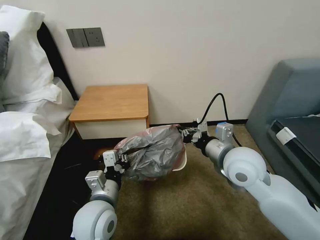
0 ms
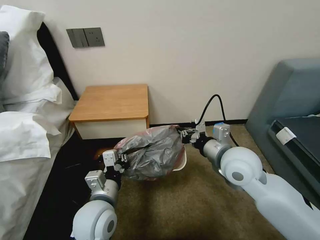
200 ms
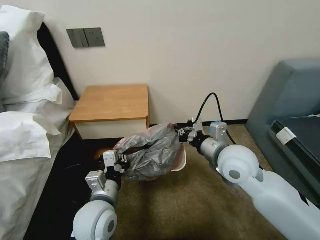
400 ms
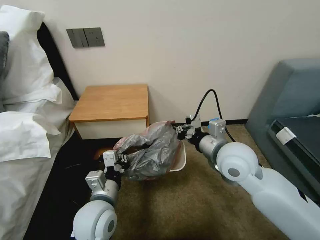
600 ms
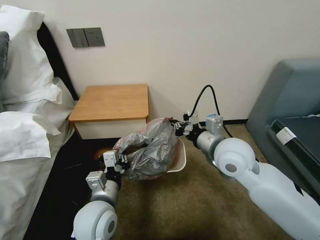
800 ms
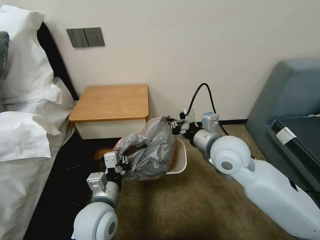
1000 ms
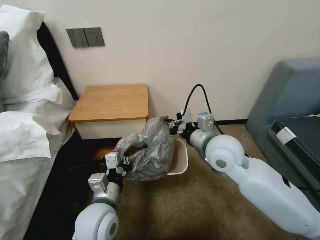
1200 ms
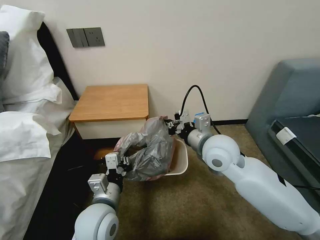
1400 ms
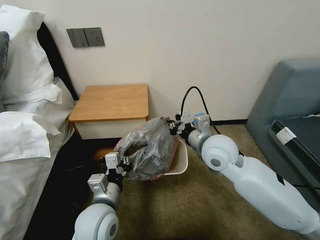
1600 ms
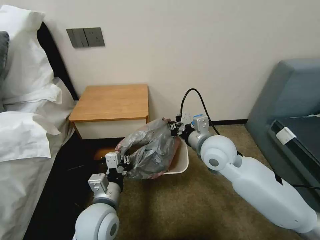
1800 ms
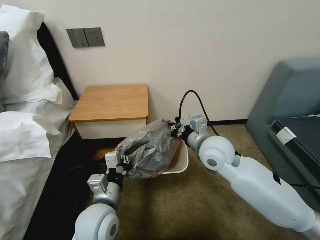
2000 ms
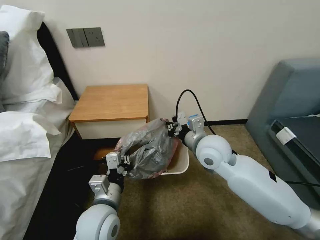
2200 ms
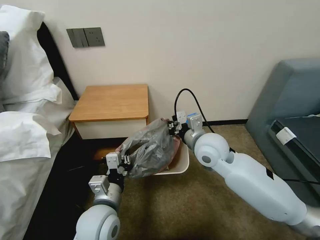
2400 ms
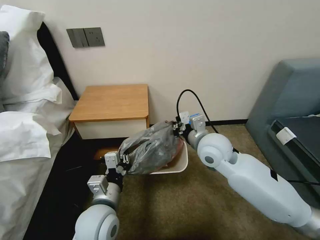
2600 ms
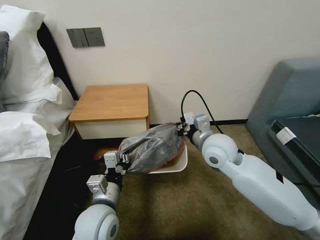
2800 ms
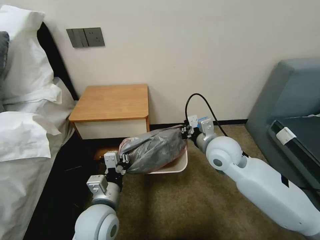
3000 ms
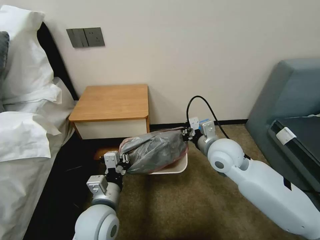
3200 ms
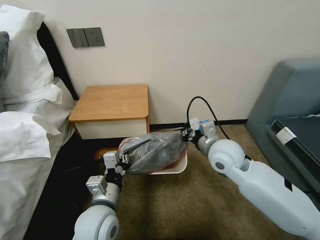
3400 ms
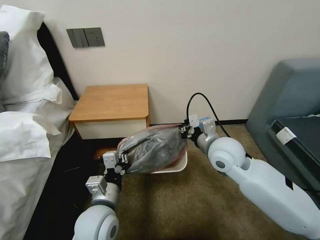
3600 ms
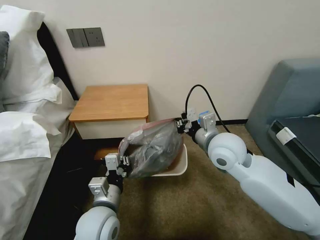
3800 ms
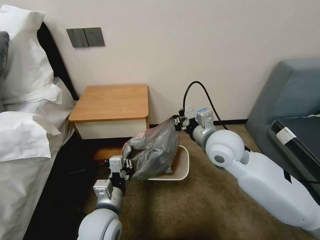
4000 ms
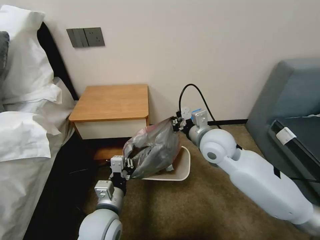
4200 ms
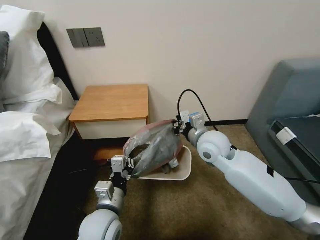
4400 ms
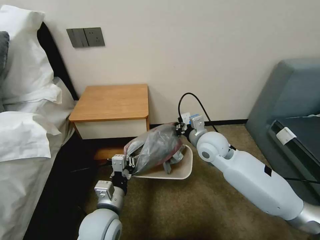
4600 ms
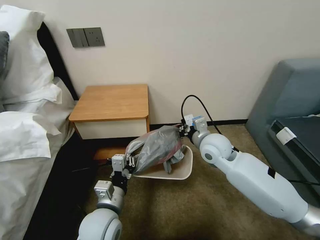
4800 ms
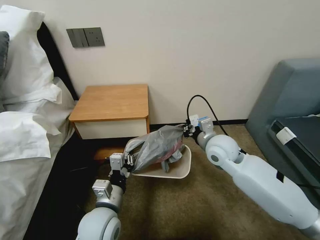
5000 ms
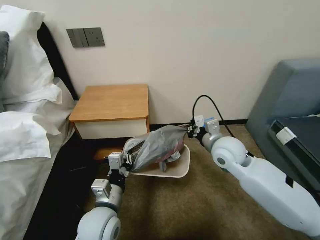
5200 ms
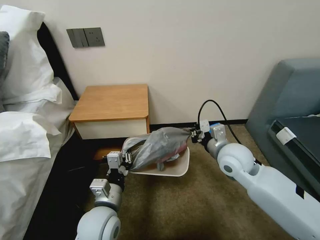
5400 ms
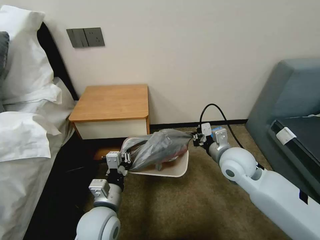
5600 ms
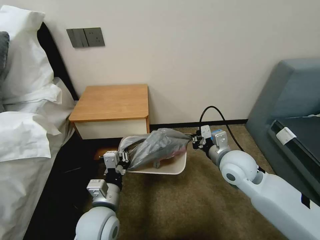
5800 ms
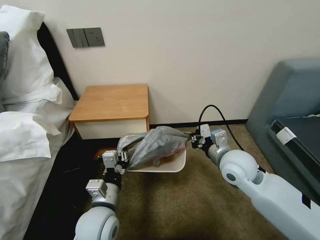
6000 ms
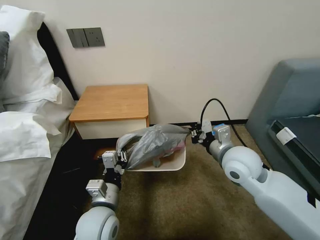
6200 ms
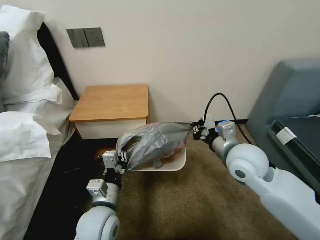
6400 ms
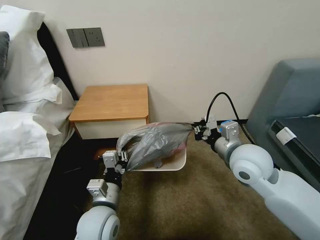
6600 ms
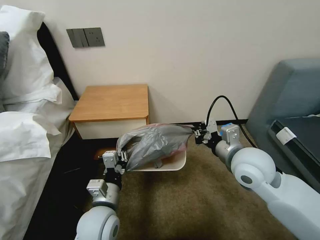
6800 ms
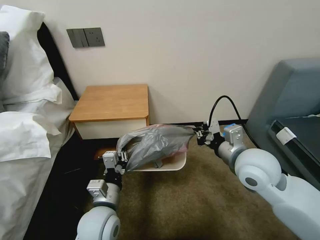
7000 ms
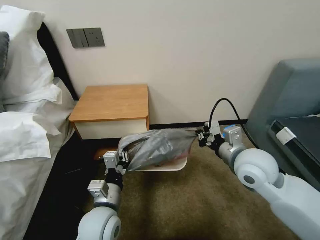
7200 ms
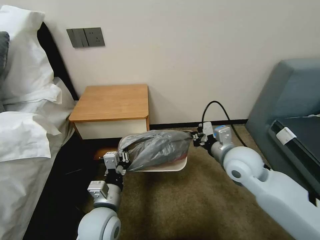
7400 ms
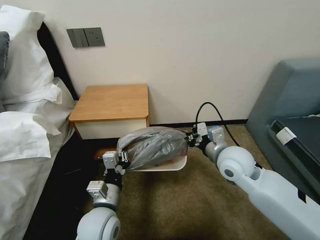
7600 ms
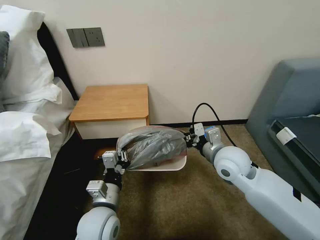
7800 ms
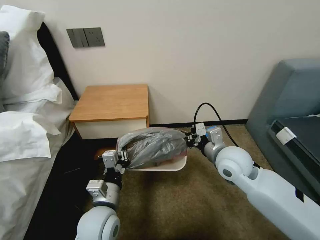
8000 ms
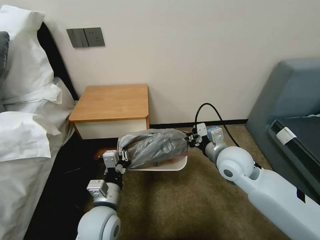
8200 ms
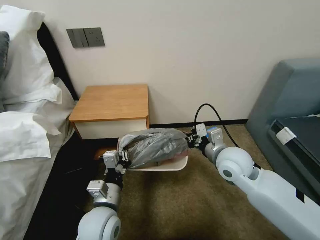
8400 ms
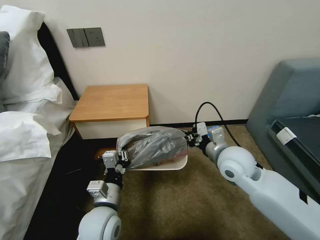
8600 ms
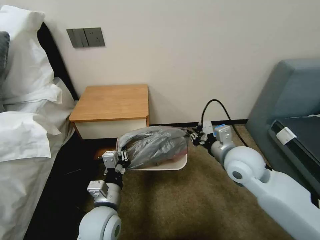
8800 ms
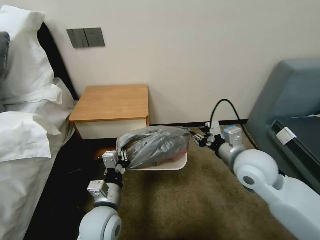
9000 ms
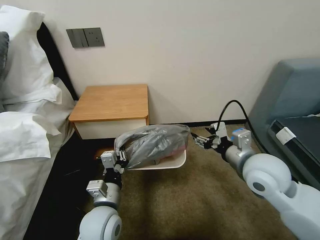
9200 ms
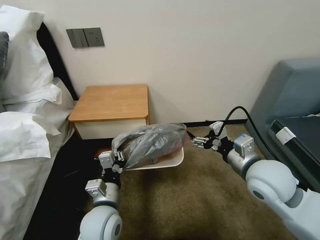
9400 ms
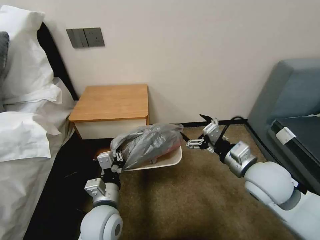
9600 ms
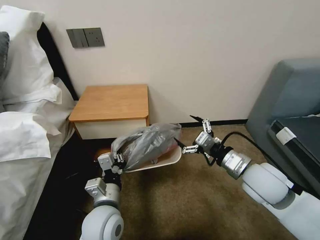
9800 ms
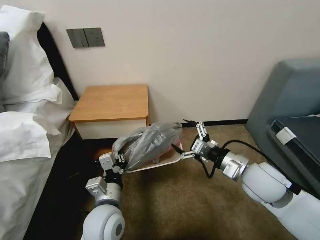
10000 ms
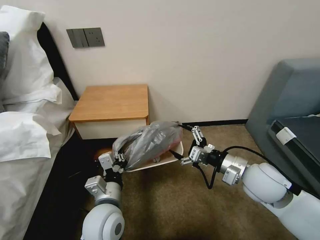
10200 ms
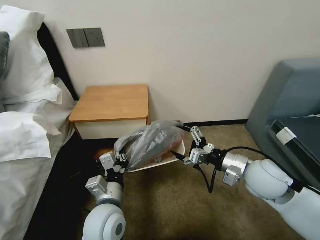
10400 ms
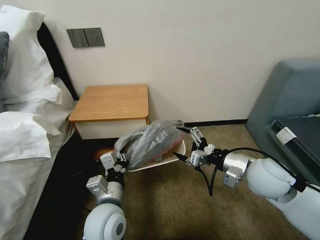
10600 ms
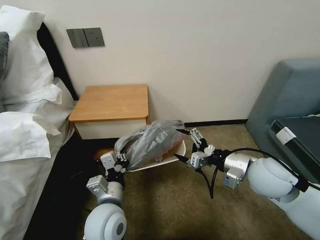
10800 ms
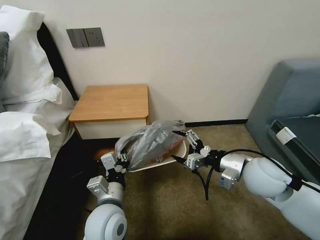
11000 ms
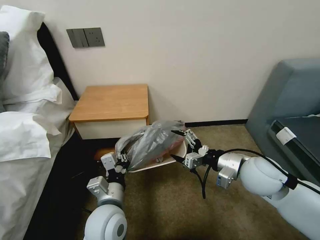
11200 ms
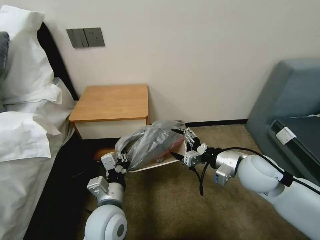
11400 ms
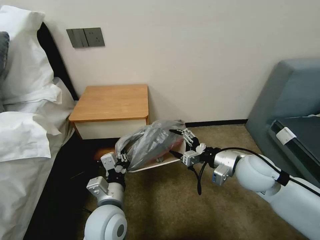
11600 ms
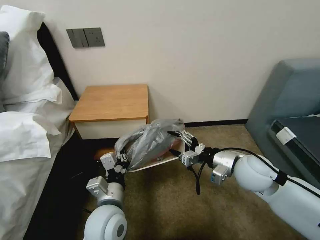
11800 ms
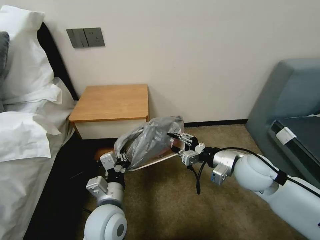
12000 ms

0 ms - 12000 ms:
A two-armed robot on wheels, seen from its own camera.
Task of the whole recording: Pick up the garbage bag from the table and place it over the trash can.
0 ms - 1600 ms: The right gripper changes place by roughly 5 cm.
1600 ms - 4400 ms: The grippers stay close to where they were, moving slightly.
4400 ms - 6000 ms: The right gripper goes roughly 10 cm to the right and backward.
7600 ms - 9000 ms: The right gripper ends up some 5 cm from where it was, and opens its fingers.
9000 ms - 10400 ms: The right gripper opens its fingers.
10400 ms - 12000 ms: The right gripper closes.

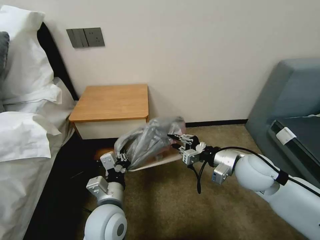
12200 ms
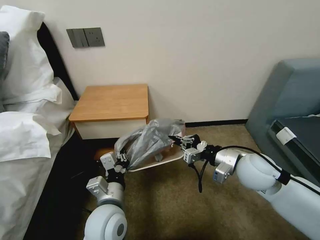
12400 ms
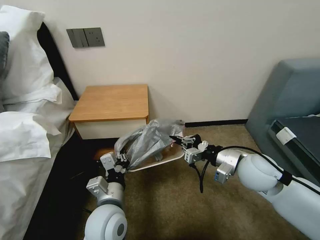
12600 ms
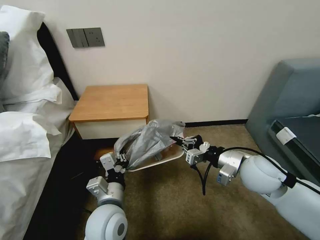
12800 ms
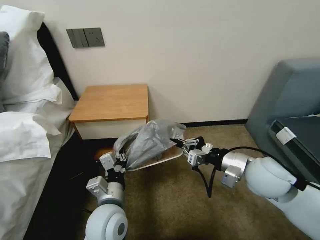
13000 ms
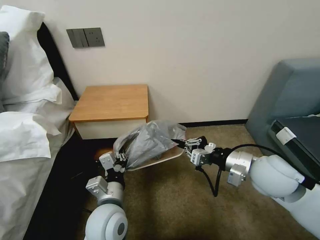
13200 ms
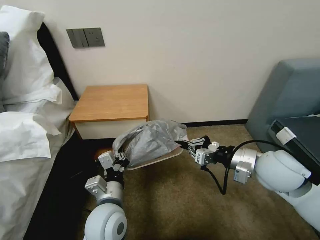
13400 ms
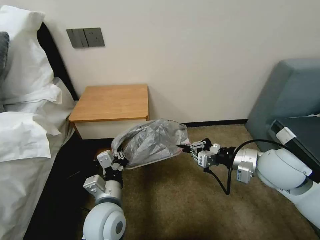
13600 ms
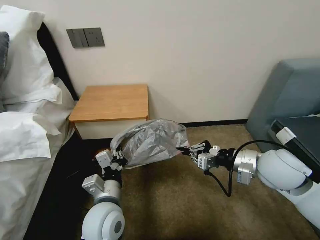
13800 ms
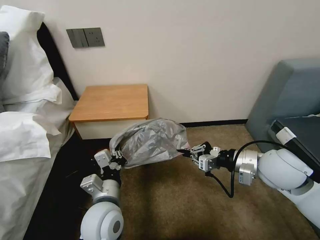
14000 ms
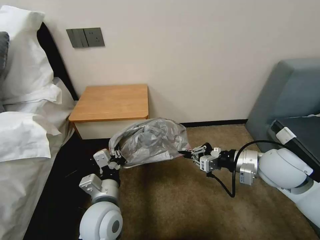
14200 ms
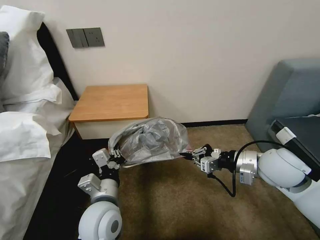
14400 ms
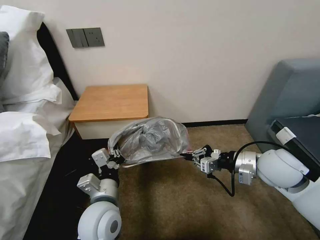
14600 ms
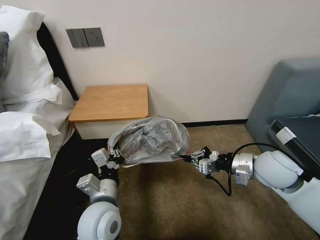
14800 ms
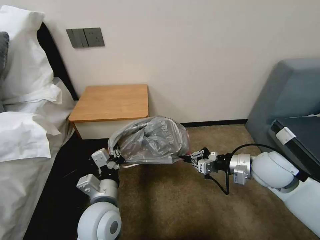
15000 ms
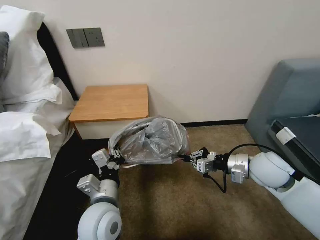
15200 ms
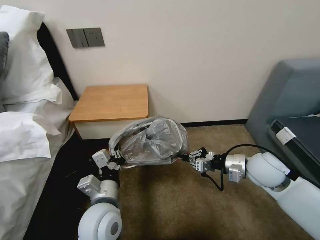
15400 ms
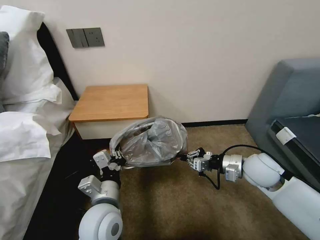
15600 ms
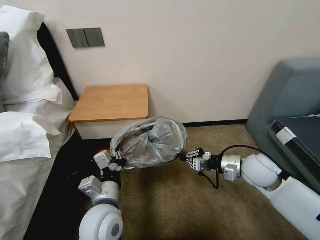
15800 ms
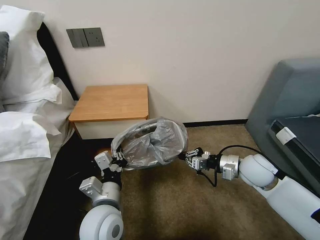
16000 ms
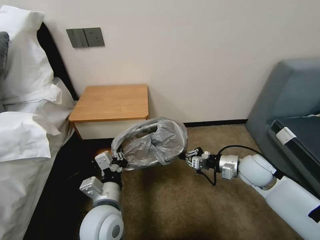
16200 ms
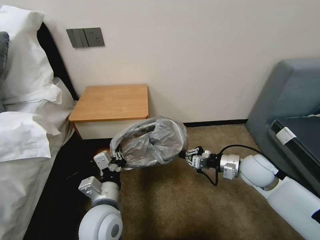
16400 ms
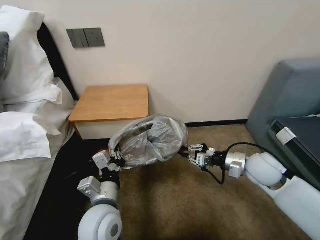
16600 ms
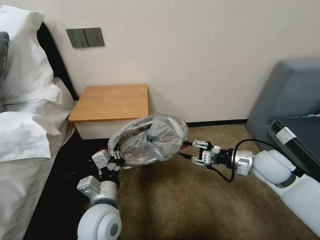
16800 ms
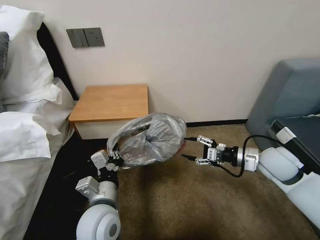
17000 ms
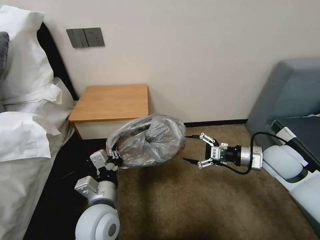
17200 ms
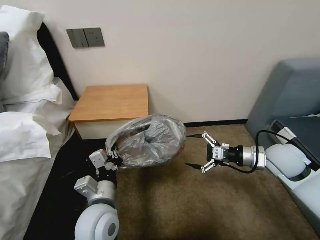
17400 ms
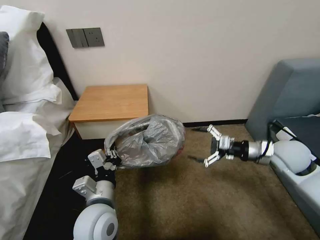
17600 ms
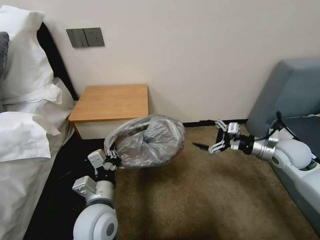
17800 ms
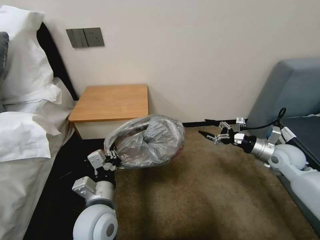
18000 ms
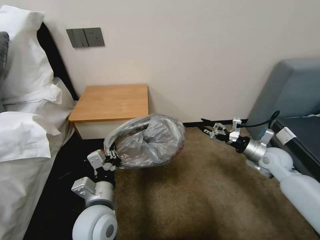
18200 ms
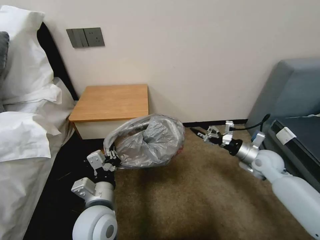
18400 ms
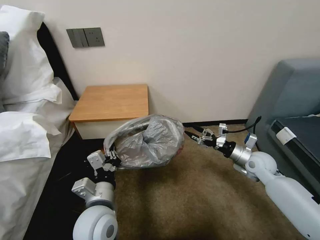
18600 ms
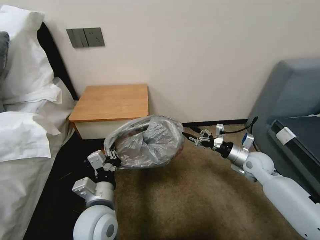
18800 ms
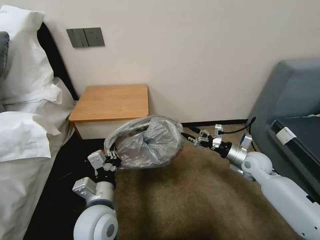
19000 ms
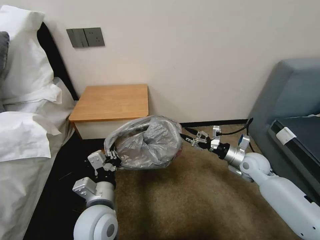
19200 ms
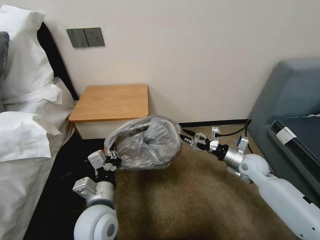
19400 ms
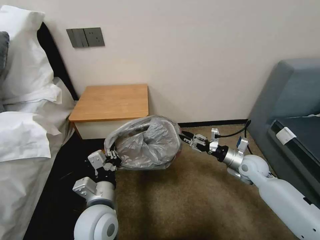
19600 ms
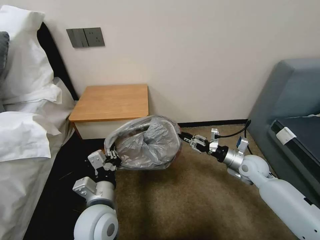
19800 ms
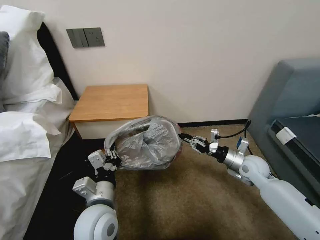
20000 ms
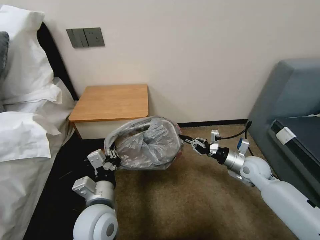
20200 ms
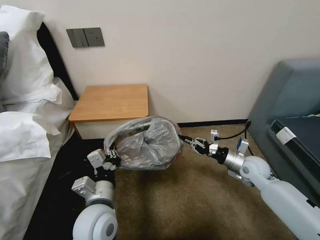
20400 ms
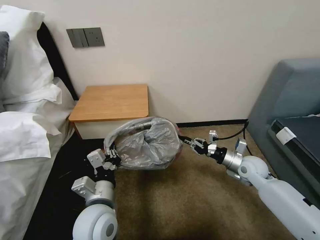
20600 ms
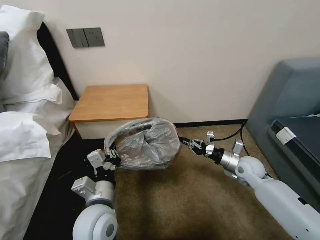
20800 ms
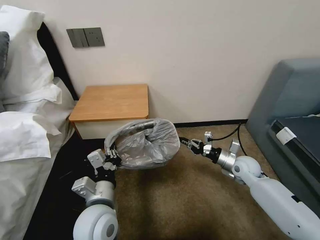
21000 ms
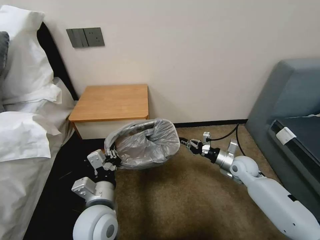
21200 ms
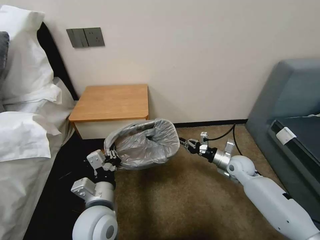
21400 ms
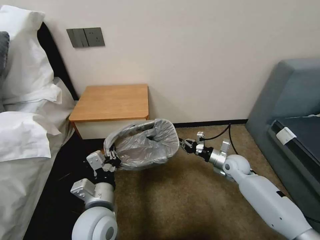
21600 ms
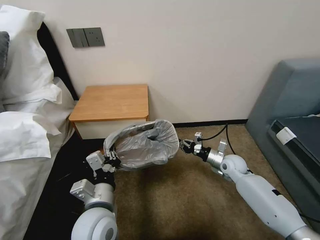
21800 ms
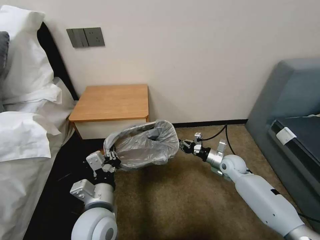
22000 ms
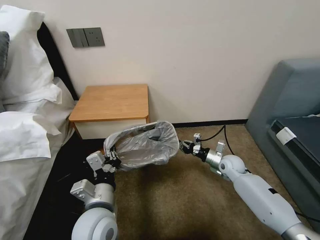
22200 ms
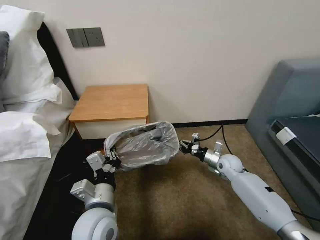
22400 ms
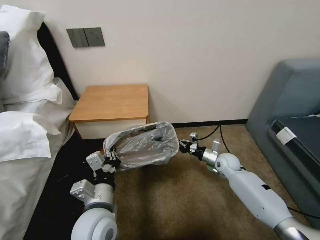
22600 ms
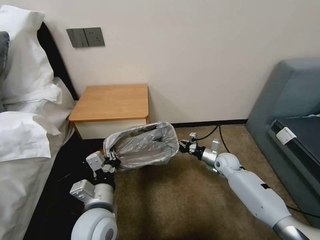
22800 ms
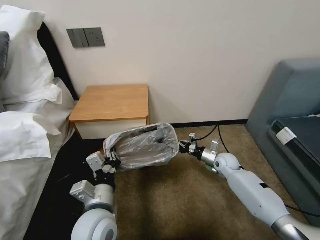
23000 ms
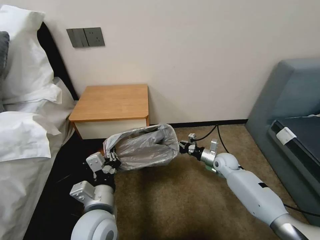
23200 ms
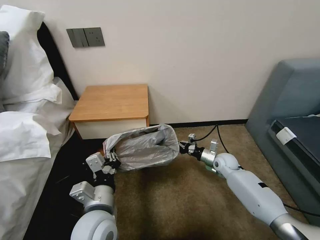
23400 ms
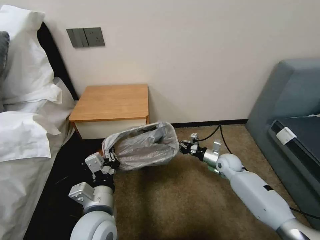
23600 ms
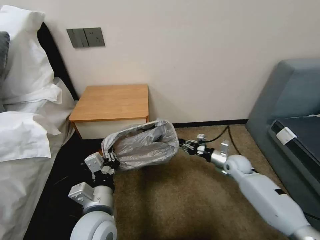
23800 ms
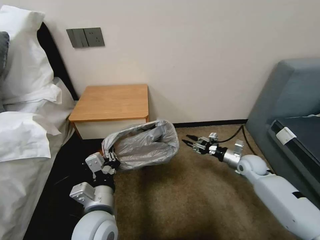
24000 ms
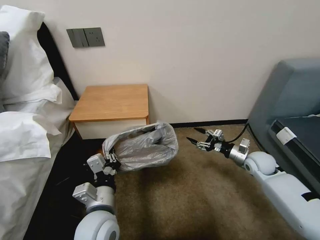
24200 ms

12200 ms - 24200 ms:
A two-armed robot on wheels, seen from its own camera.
Task of the whole recording: Pick up the garbage bag from the table and place it over the trash can.
12200 ms - 13800 ms: The right gripper changes place by approximately 5 cm.
13800 ms - 15200 ms: The right gripper heads downward, covering roughly 5 cm.
15200 ms - 16600 ms: There are only small adjustments of the grippers.
16600 ms - 18200 ms: The right gripper moves to the right, about 10 cm, and opens.
18200 ms - 19800 ms: The right gripper shifts roughly 5 cm to the left, and closes its fingers.
19800 ms - 21200 ms: There are only small adjustments of the grippers.
21200 ms - 22600 ms: The right gripper moves about 5 cm.
22600 ms - 24200 ms: The right gripper shifts approximately 10 cm to the right and upward, and opens.
